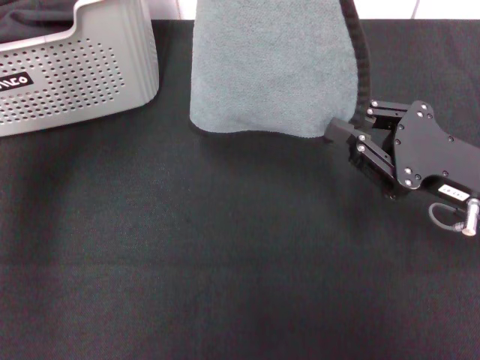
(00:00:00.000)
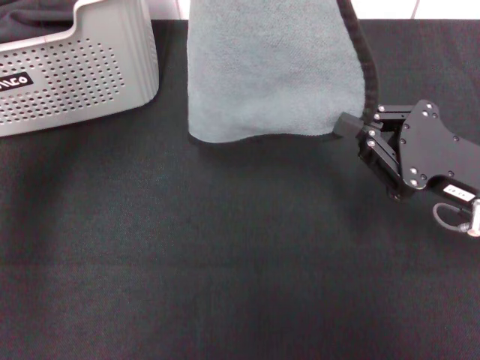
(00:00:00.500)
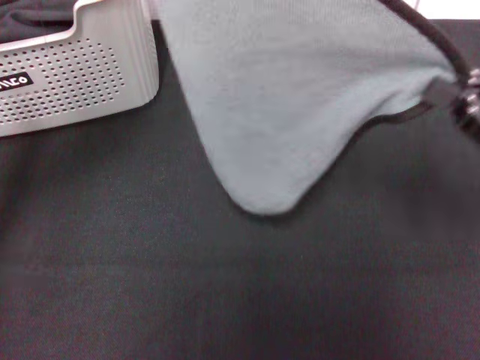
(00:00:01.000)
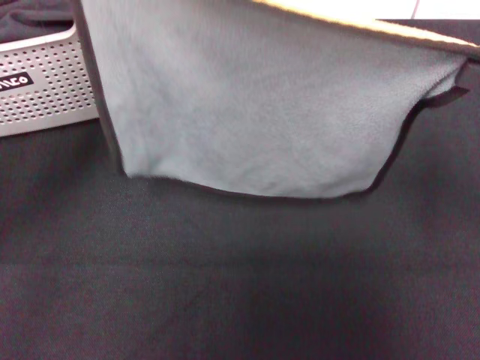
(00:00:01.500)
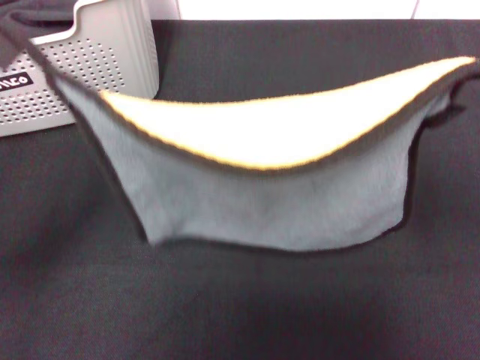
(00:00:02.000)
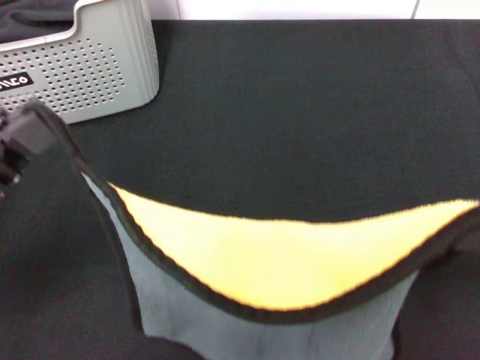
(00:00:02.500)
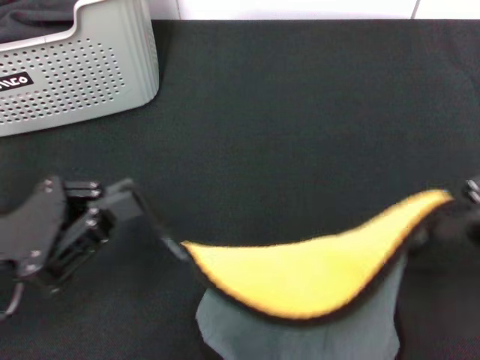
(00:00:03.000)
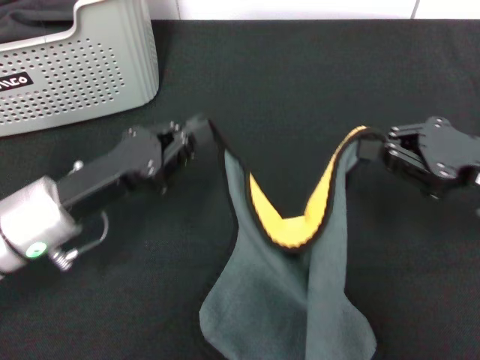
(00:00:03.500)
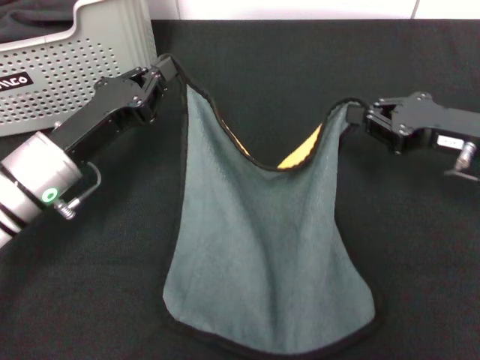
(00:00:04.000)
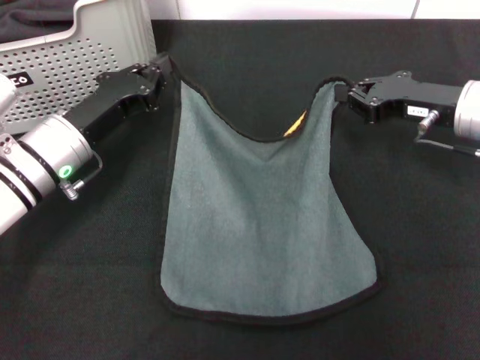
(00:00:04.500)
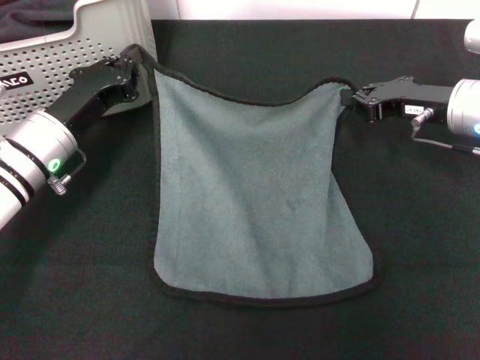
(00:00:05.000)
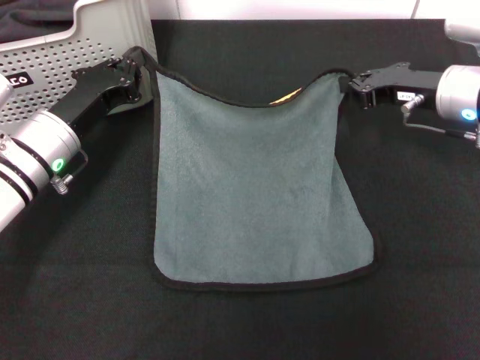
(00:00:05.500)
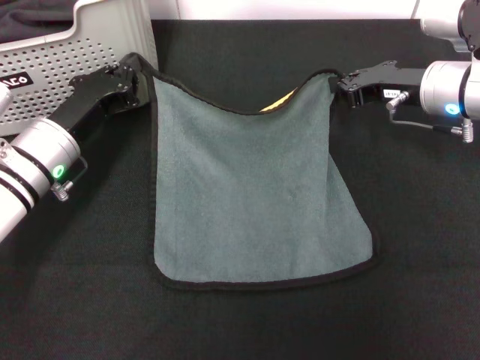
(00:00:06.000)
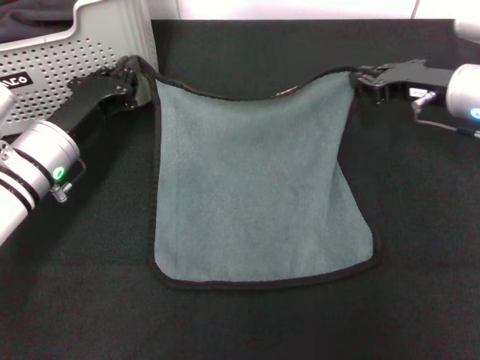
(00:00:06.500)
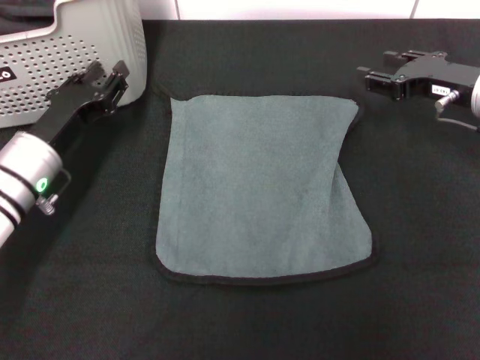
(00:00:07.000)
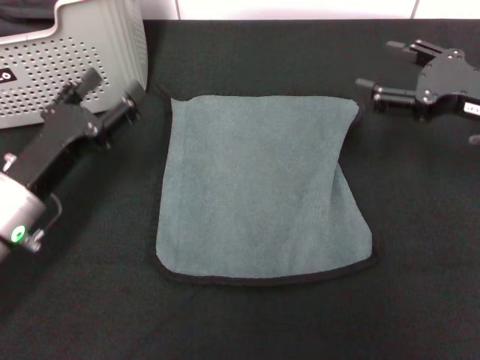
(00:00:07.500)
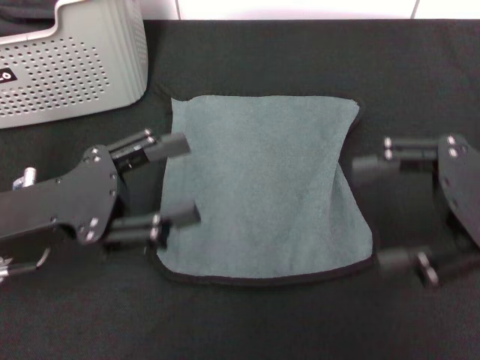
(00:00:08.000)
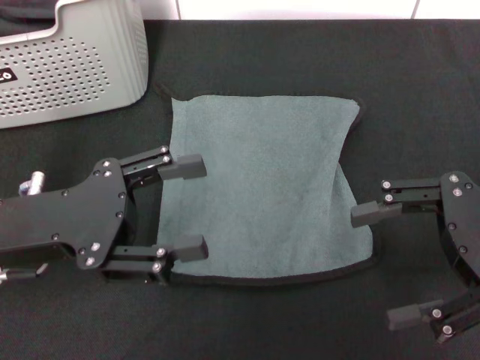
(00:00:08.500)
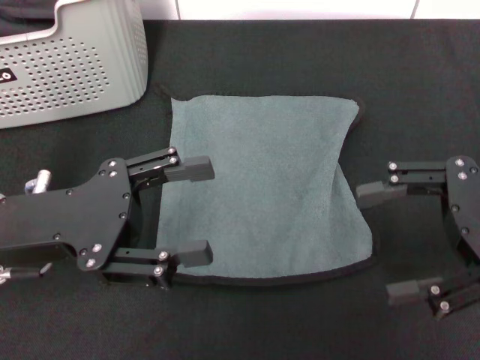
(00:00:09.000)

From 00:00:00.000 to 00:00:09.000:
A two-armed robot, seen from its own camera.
Task of the whole recording: pick up the towel from the storage box and lay it flat on the black tablecloth.
Step, from 00:00:01.000 to 00:00:06.500: Spread the towel flat with the right gripper.
From 00:00:00.000 to 00:00:02.000: The left gripper moves backward, downward and to the left, some 20 cm. Meanwhile the right gripper heads upward and to the right, covering some 15 cm.
From 00:00:02.000 to 00:00:04.500: The left gripper travels forward, downward and to the right by roughly 20 cm. Meanwhile the right gripper goes approximately 20 cm forward, downward and to the left.
From 00:00:04.500 to 00:00:07.000: The left gripper opens up; the right gripper opens up.
From 00:00:07.000 to 00:00:09.000: The right gripper is displaced backward and upward by about 15 cm, and opens. The left gripper heads upward and backward, covering roughly 10 cm, and opens its fingers.
